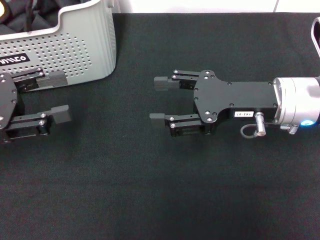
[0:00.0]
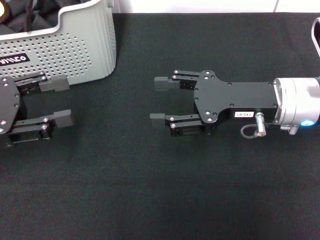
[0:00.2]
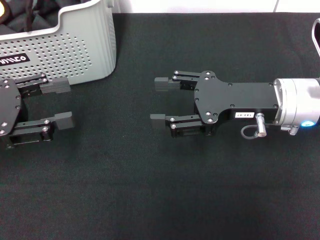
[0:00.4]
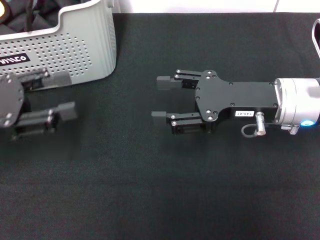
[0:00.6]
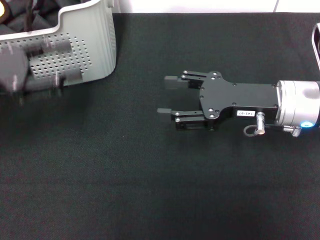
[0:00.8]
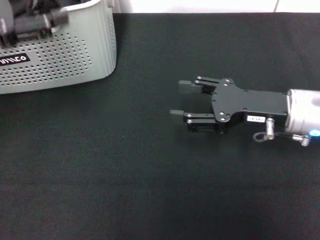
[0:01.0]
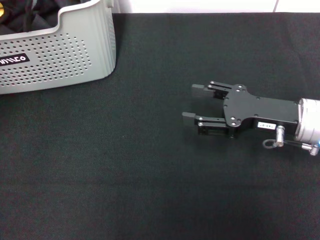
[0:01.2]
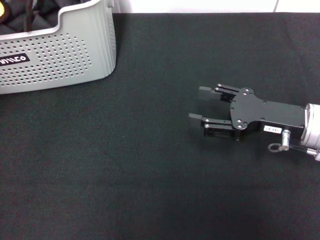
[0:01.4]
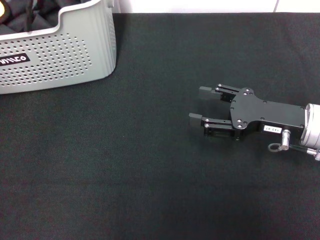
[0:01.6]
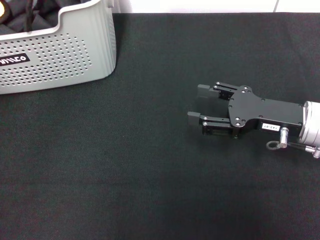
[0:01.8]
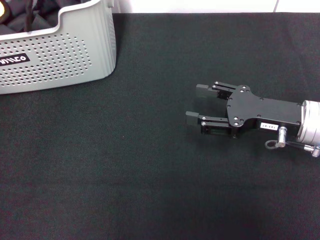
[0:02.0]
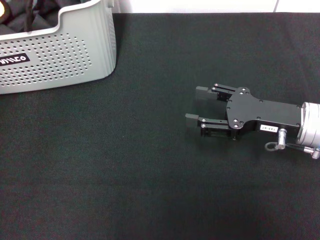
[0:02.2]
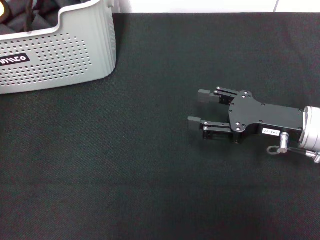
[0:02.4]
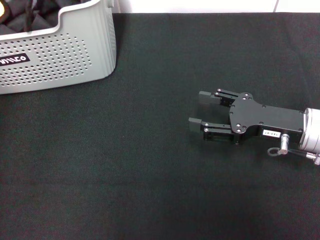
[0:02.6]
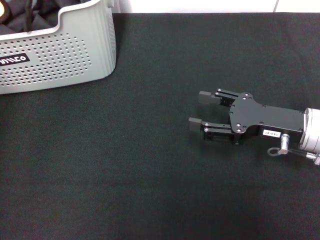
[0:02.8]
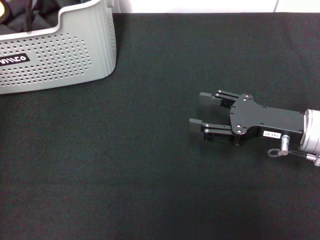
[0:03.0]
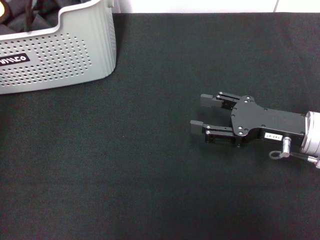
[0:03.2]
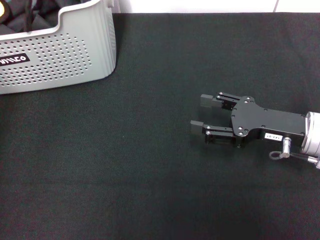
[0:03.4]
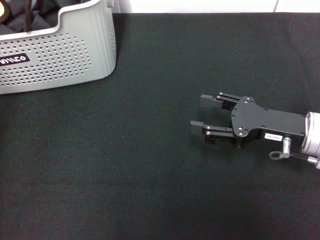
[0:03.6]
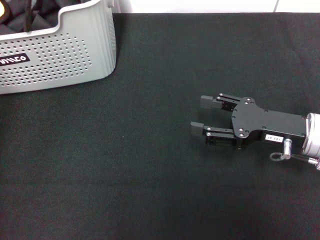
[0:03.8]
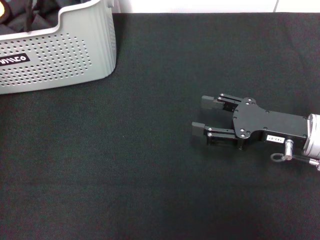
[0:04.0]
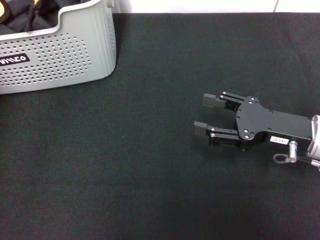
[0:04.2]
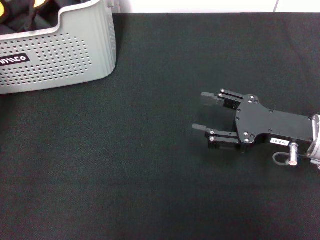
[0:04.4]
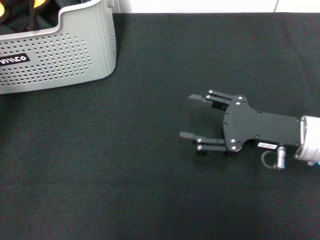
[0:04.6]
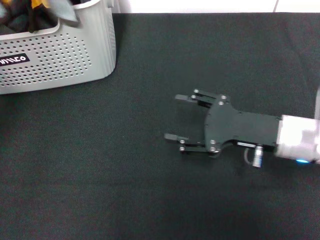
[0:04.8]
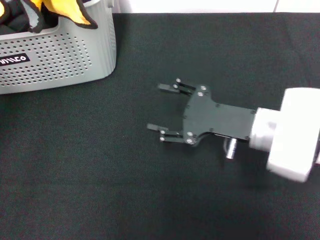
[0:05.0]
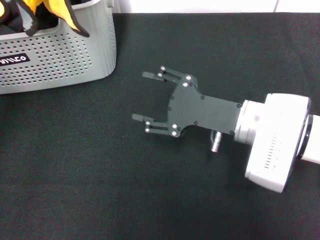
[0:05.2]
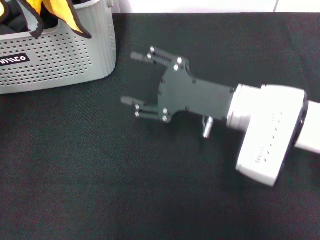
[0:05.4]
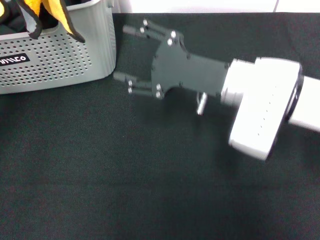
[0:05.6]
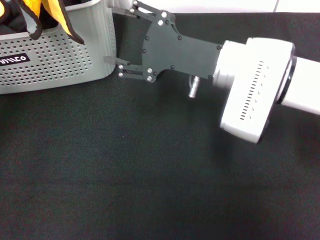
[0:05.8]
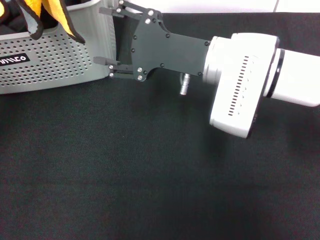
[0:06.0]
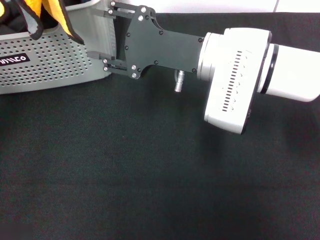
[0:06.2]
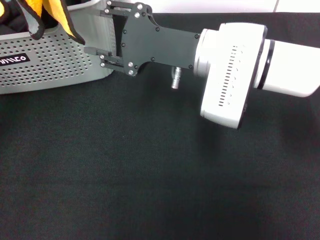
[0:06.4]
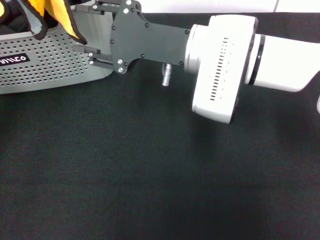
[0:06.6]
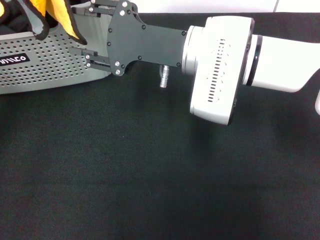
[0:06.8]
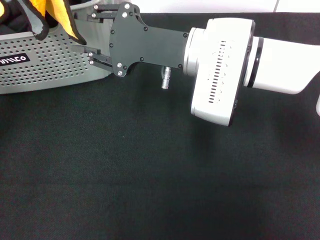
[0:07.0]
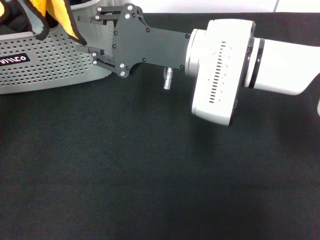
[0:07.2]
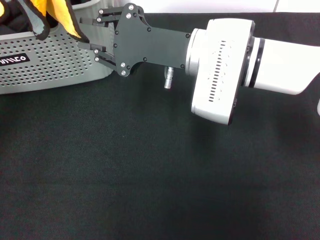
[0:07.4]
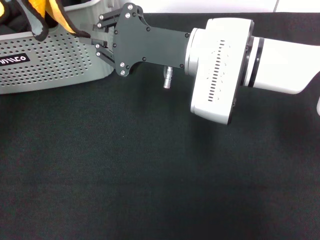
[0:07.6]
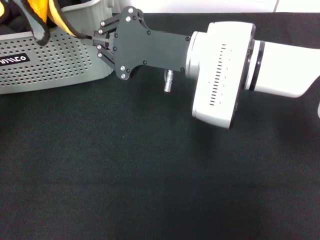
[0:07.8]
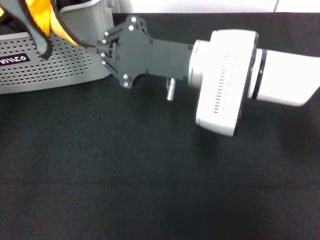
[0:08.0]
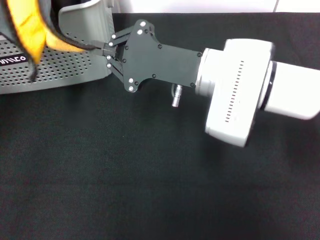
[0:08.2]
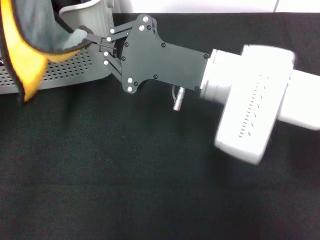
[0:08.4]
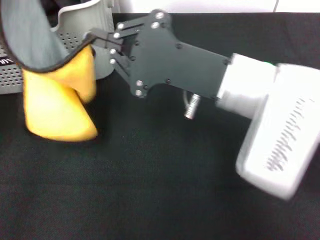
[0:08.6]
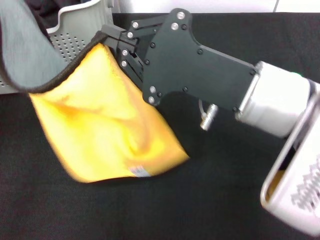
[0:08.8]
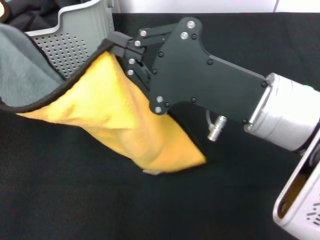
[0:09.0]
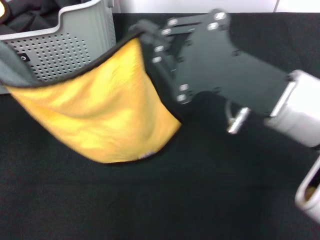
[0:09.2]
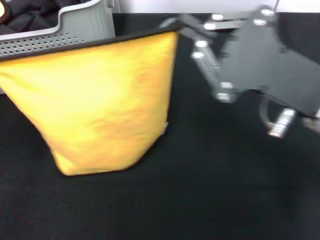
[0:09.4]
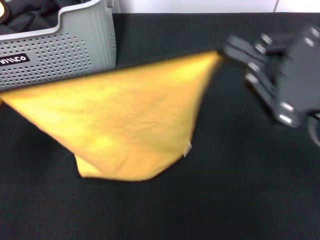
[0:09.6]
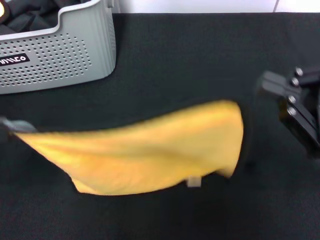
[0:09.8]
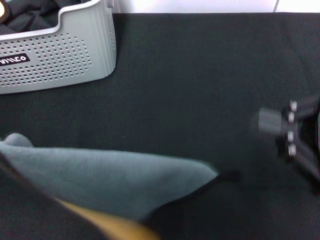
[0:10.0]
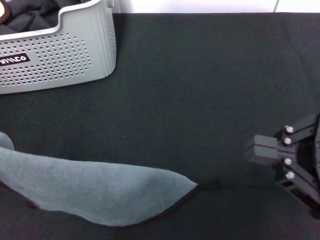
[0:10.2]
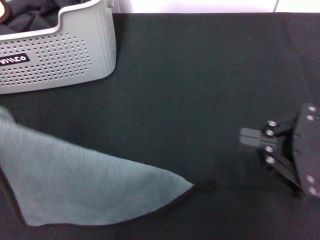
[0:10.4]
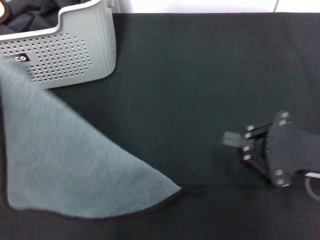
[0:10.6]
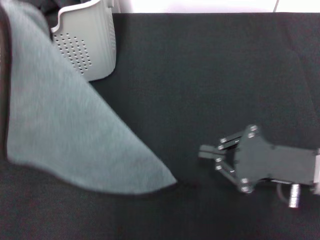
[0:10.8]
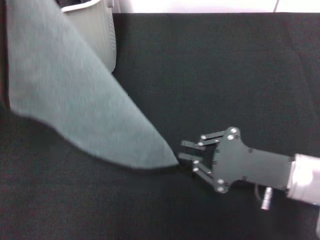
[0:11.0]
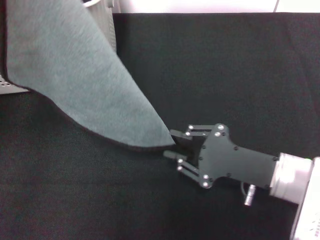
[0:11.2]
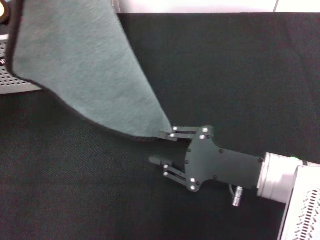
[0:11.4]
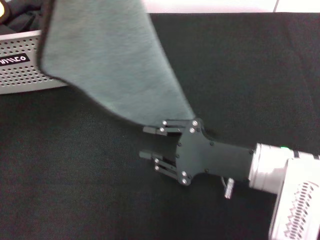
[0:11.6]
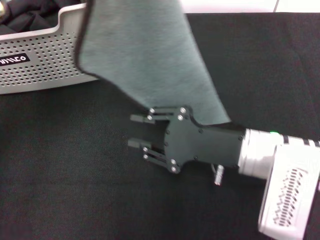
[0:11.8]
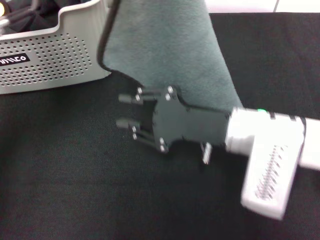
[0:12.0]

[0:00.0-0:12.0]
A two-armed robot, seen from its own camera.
Task of the whole recording: pick up the towel from the storage box and lay it flat on the black tablecloth.
Step, 0:00.0 to 0:03.6: Pick up a towel with the left gripper.
Step, 0:04.0 to 0:07.8: Spread the towel flat with the left gripper.
0:00.0 to 0:01.6: The left gripper goes roughly 15 cm upward. Meanwhile the right gripper is displaced to the right by about 5 cm.
0:03.0 to 0:04.4: The left gripper shifts approximately 10 cm upward, to the right and backward, and closes.
0:04.4 to 0:06.0: The right gripper shifts approximately 15 cm to the left and upward, while the left gripper ends up about 5 cm from where it was.
0:06.0 to 0:07.6: The right gripper closes its fingers.
0:07.6 to 0:09.0: The left gripper moves downward, backward and to the left, some 15 cm, while the right gripper shifts some 15 cm backward and to the right.
0:09.0 to 0:10.4: The right gripper moves to the right, approximately 15 cm.
0:10.4 to 0:12.0: The left gripper goes approximately 20 cm to the right and forward. Meanwhile the right gripper shifts approximately 15 cm to the left and forward, and opens up.

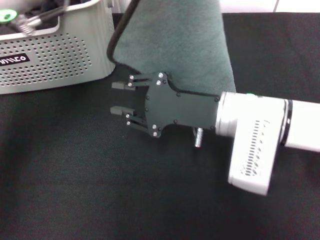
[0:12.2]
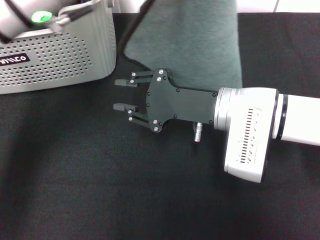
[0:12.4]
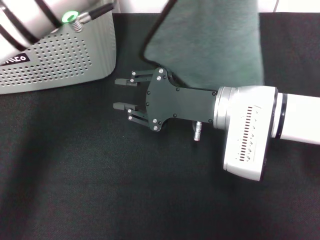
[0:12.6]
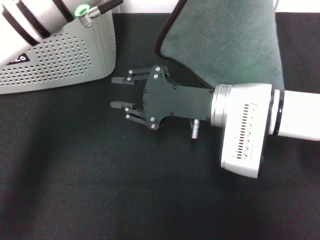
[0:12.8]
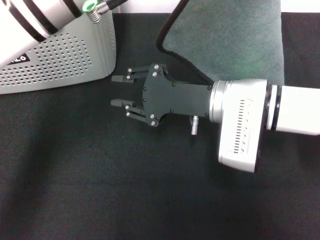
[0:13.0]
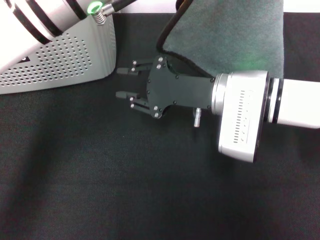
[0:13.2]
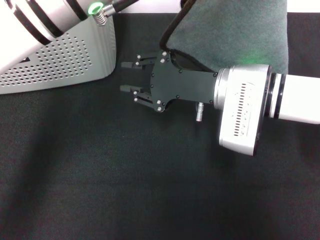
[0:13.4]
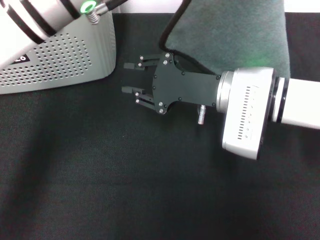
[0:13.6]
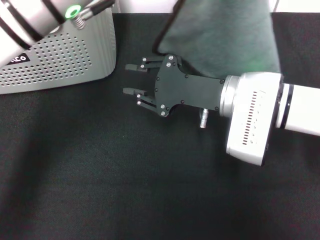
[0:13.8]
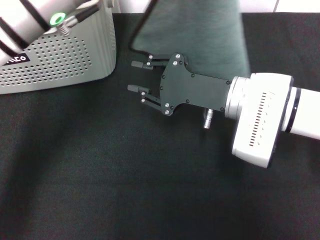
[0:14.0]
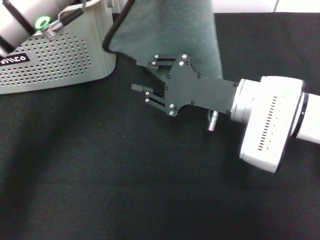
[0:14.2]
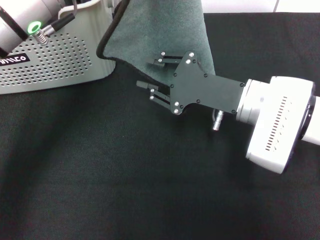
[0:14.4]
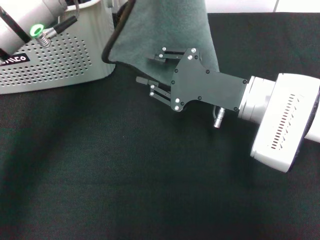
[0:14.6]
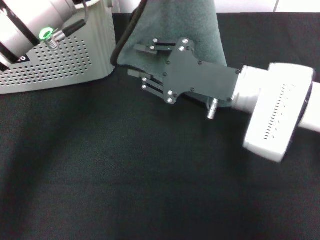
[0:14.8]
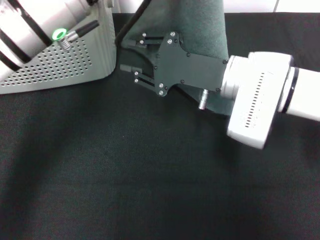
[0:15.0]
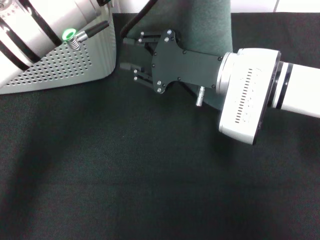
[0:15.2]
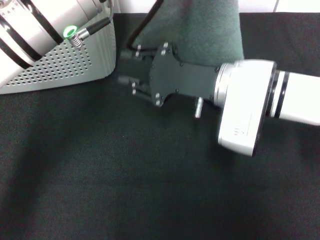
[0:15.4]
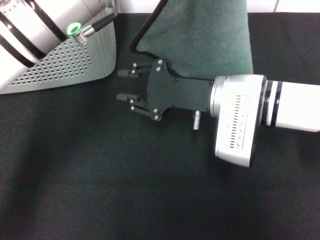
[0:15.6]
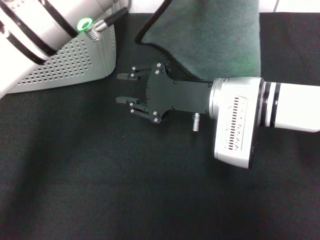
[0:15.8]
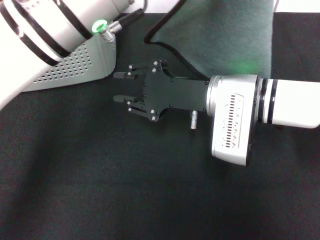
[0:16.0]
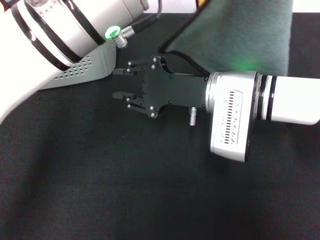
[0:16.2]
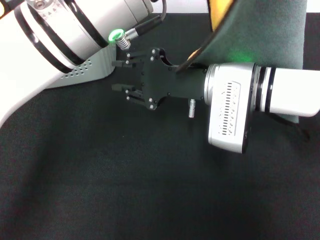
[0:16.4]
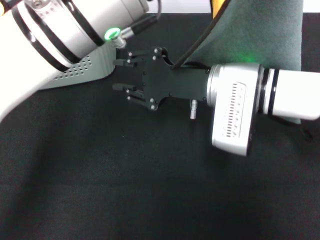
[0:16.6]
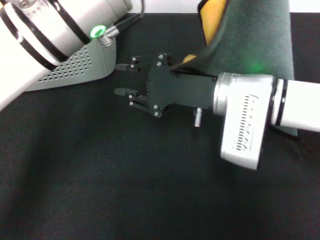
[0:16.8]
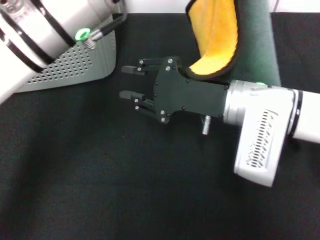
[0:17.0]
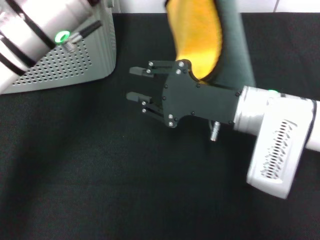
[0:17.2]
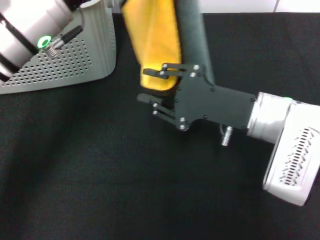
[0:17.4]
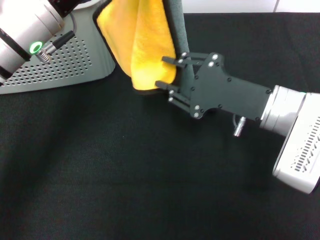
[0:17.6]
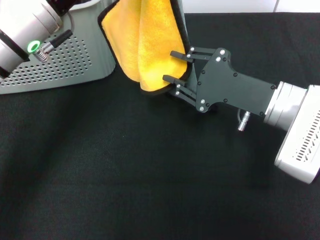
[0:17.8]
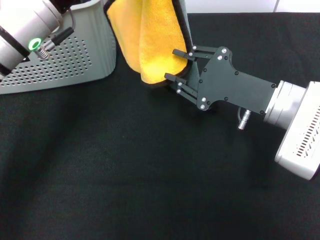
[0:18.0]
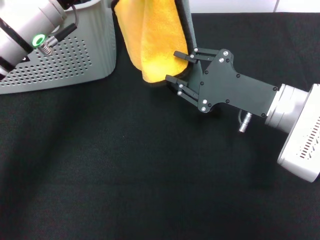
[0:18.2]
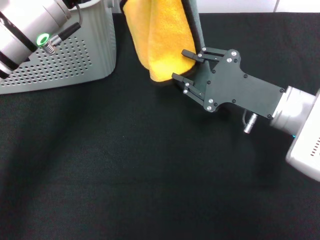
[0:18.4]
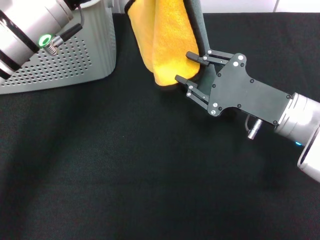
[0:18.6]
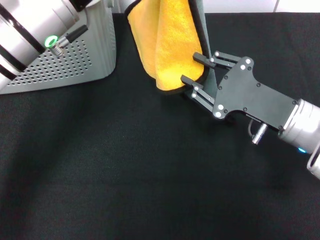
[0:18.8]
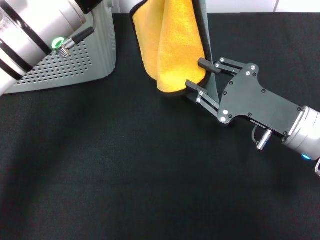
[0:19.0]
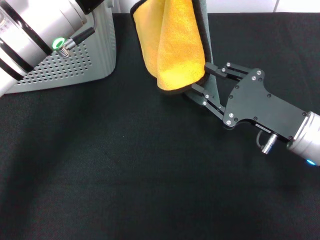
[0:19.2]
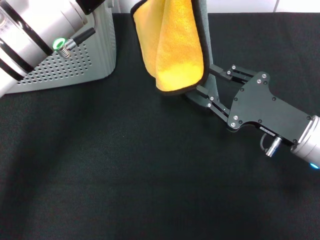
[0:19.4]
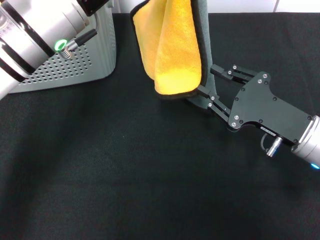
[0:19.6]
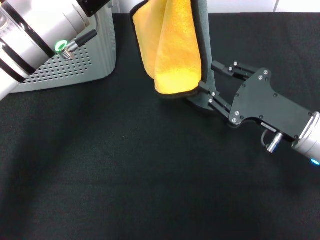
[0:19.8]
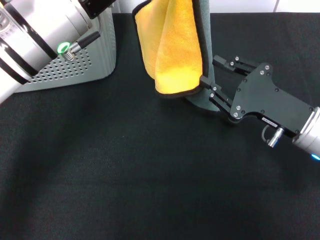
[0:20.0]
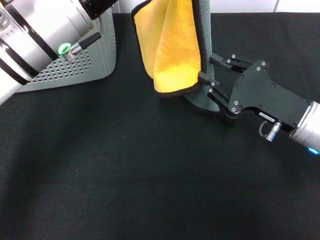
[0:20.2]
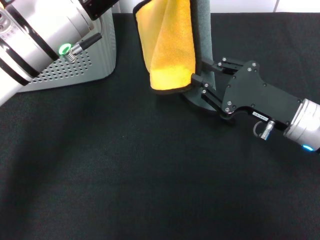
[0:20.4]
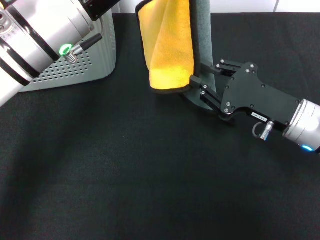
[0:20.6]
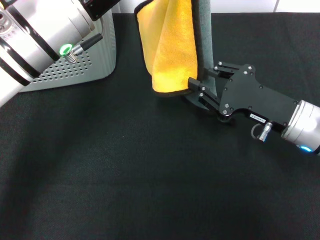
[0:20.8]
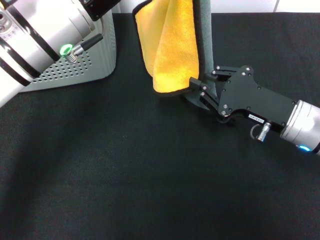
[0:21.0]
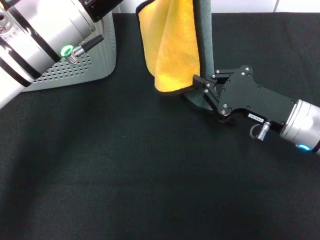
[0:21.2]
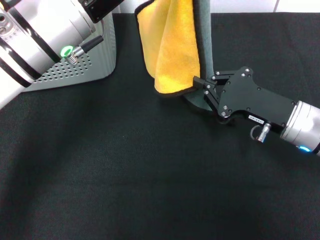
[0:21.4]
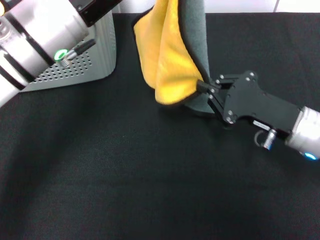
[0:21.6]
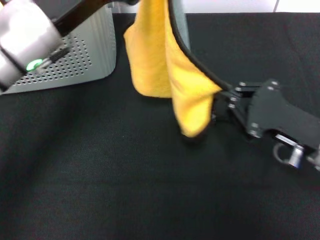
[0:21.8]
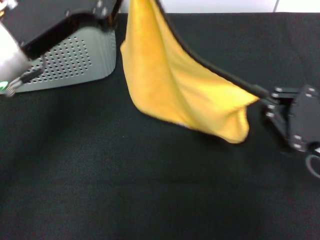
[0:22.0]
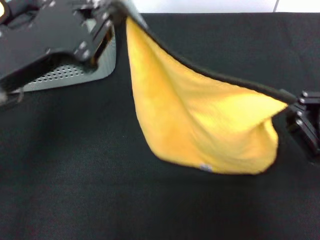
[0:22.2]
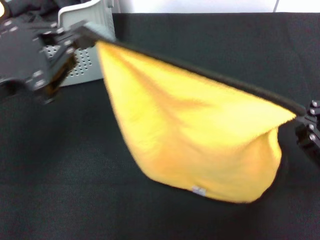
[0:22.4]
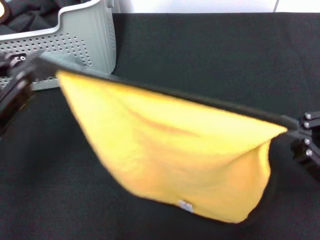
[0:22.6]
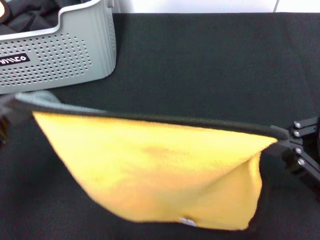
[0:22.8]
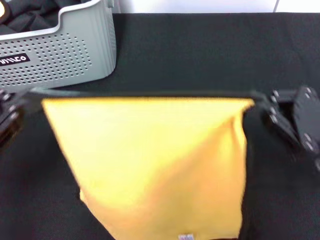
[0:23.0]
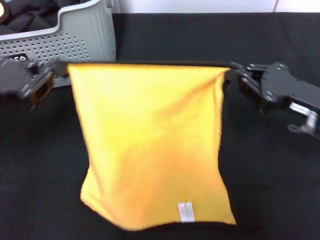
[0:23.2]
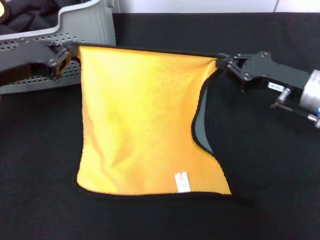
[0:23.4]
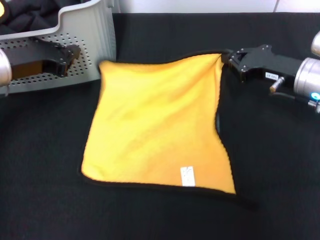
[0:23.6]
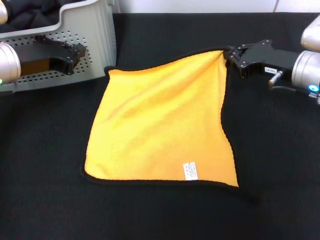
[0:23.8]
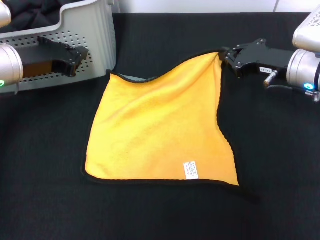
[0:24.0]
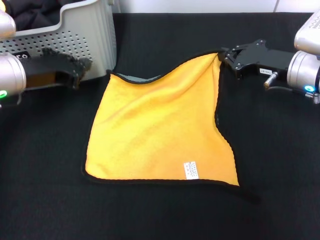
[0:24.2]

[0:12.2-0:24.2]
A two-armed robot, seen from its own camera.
Task of the whole recording: pick up the towel from the storage box and lay it flat on the black tablecloth.
0:16.6 to 0:18.2: The right gripper is displaced to the right by roughly 10 cm; the left gripper heads to the left, covering roughly 5 cm.
0:18.2 to 0:19.8: The right gripper ends up roughly 5 cm from where it was.
0:19.8 to 0:21.2: The grippers move only a little.
0:21.2 to 0:22.6: The right gripper shifts approximately 15 cm backward, to the right and upward, while the left gripper goes roughly 20 cm to the left and backward.
0:22.6 to 0:24.2: The right gripper travels forward by roughly 20 cm. The left gripper is displaced forward and downward by approximately 20 cm.
